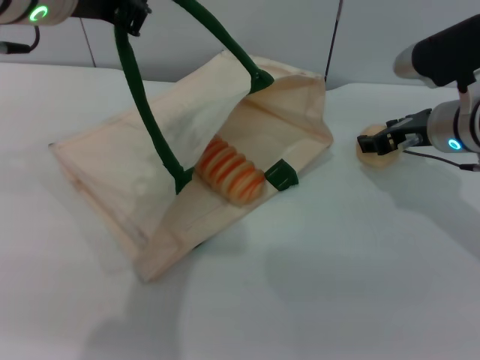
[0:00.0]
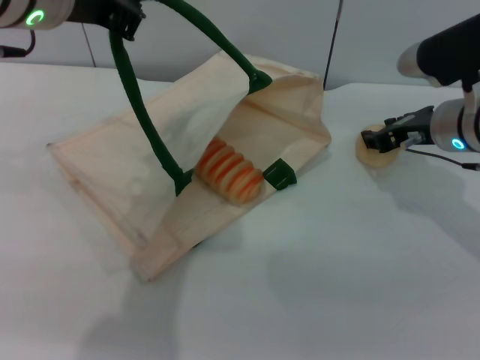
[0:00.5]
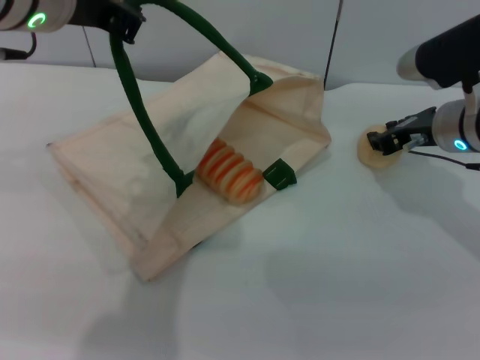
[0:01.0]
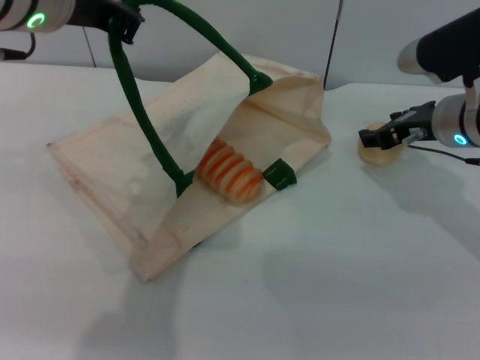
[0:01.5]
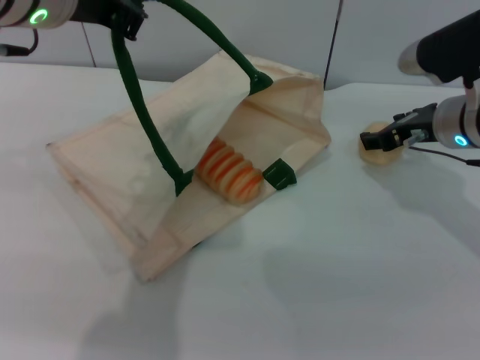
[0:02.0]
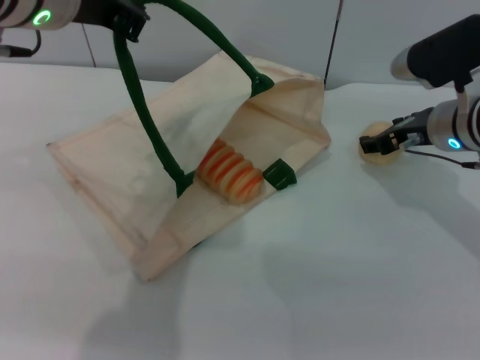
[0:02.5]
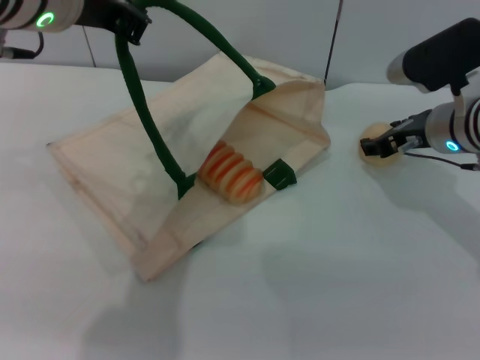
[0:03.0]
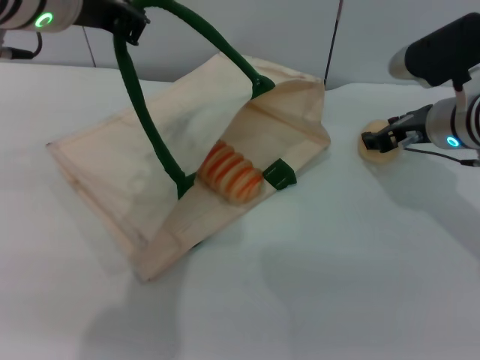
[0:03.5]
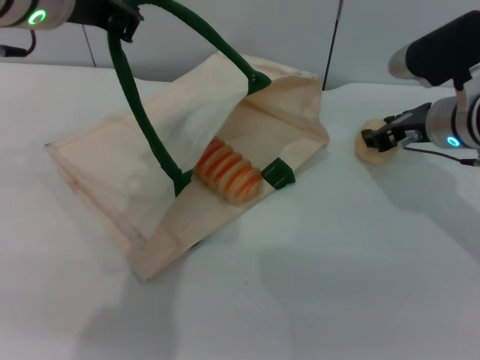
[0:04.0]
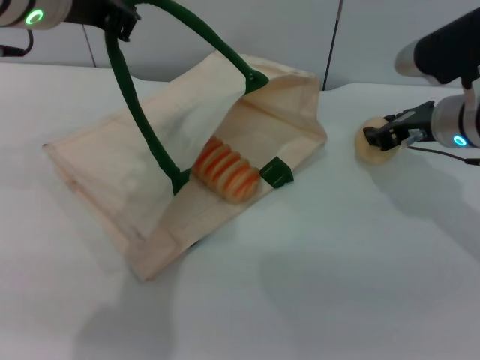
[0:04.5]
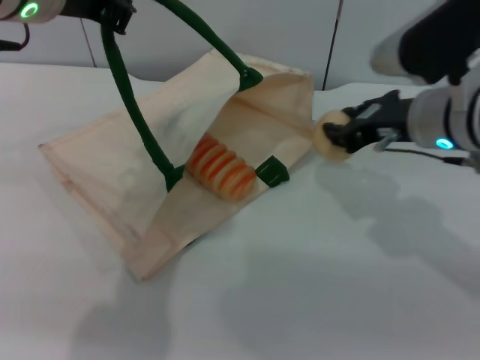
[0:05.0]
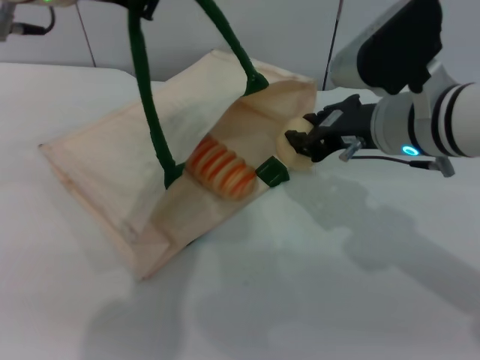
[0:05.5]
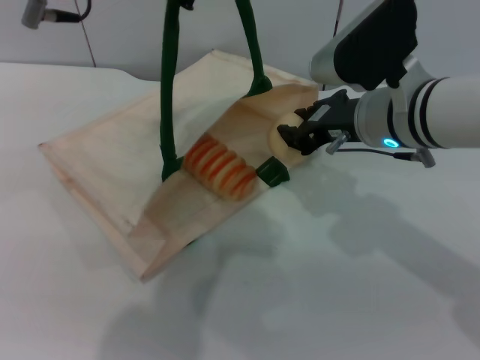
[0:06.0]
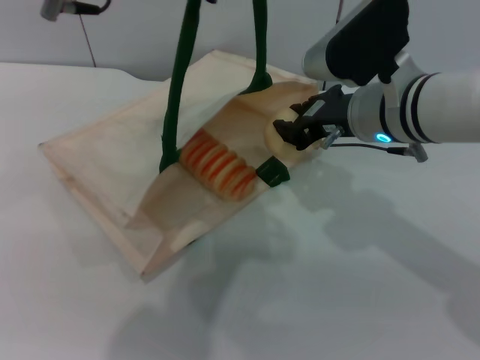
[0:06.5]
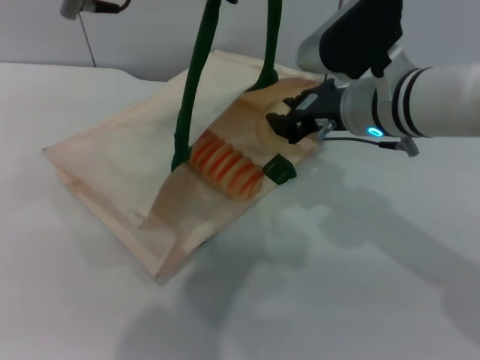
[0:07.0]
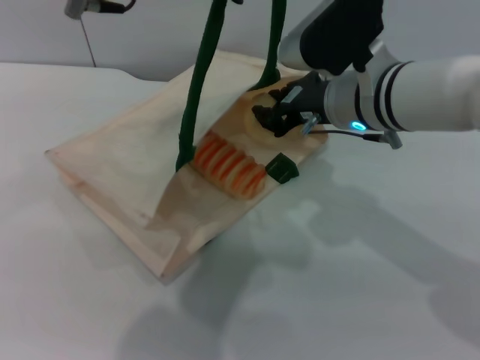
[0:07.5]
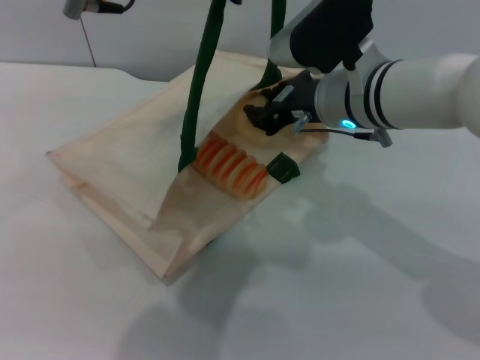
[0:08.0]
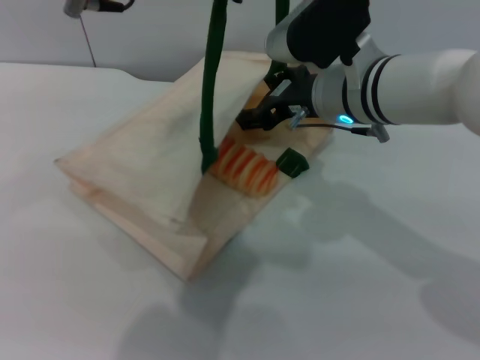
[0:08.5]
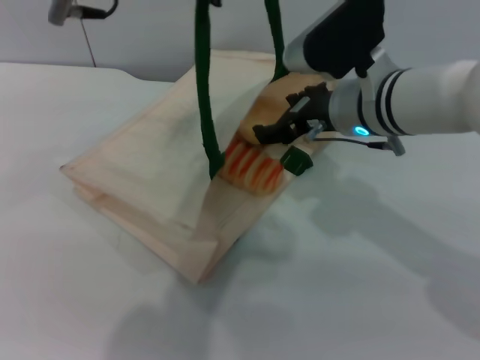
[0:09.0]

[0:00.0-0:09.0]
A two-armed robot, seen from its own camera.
Task of the whole recording: pick up the bread and egg yolk pastry from the table and place it in the white handbag.
Step, 0:00.0 to 0:05.0: Pick up the egg yolk pastry with the right gripper.
0:00.0 to 0:02.0: The right gripper closes, then reopens.
0:02.0 to 0:04.5: The right gripper closes up.
0:04.5 to 0:07.0: The left gripper is displaced to the right by some 5 cm. The right gripper heads to the left, covering roughly 10 cm.
0:07.0 to 0:09.0: The right gripper opens its fingers.

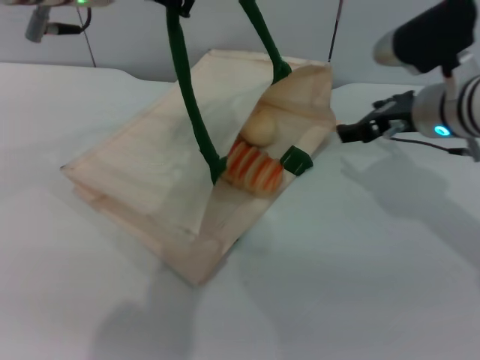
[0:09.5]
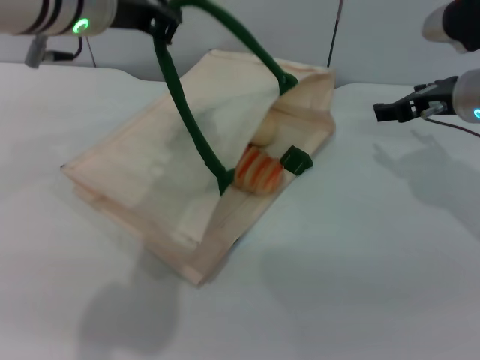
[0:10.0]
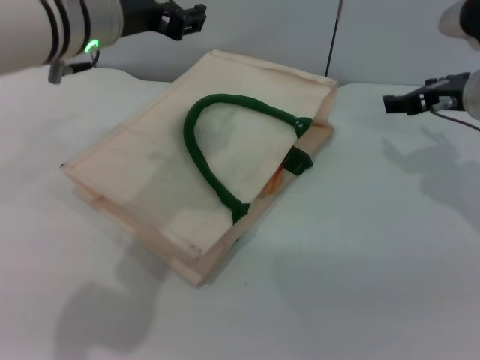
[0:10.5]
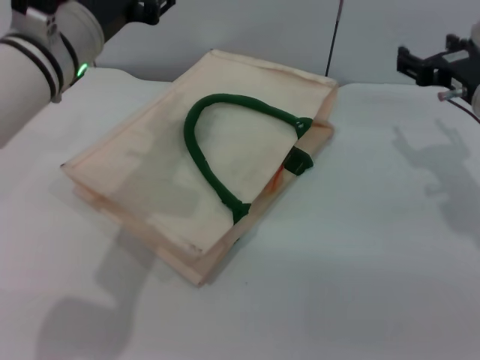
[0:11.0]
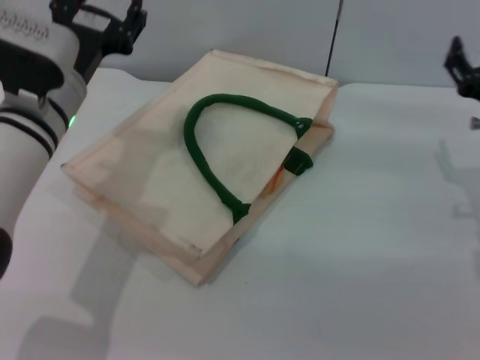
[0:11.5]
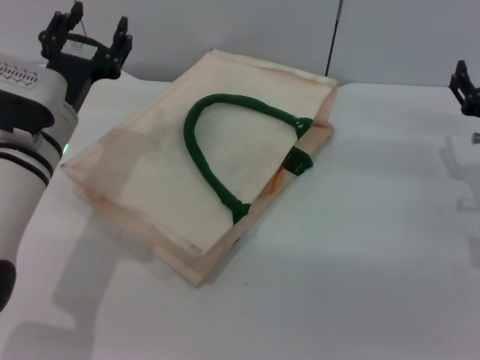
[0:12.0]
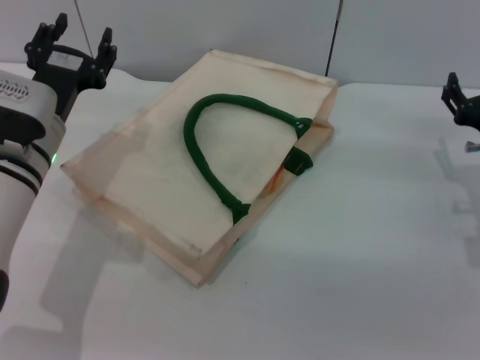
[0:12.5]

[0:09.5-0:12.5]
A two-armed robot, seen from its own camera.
Task of the whole recording: pick up the bread and egg yolk pastry from the table and place it in the white handbag.
Step, 0:10.0 to 0:10.5: Lower the woven bag with the left gripper to close it.
0:09.5 to 0:11.0: The right gripper moves to the right, some 5 cm. The left gripper heads downward, covering about 10 cm, and opens.
0:11.0 to 0:12.5: The right gripper travels downward by about 5 cm; the left gripper goes approximately 10 cm downward.
